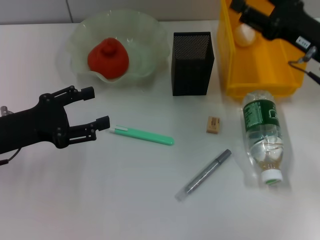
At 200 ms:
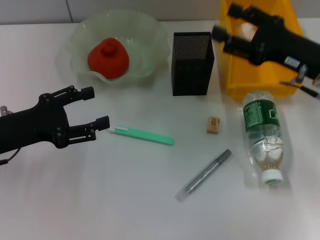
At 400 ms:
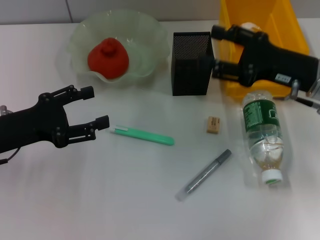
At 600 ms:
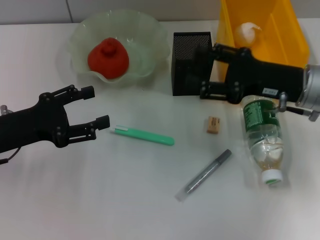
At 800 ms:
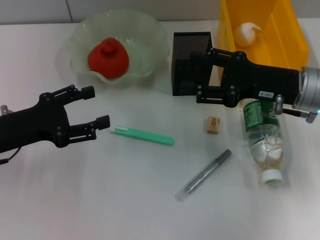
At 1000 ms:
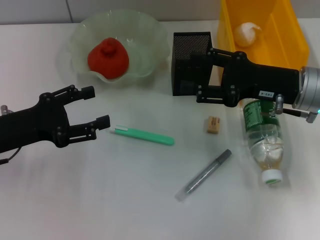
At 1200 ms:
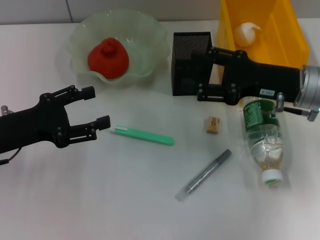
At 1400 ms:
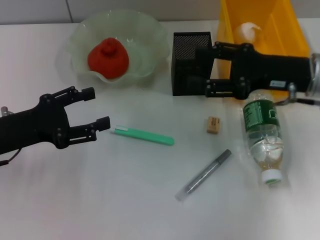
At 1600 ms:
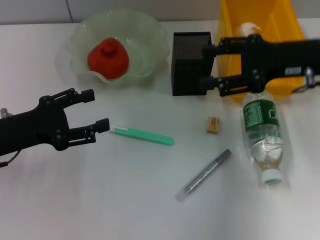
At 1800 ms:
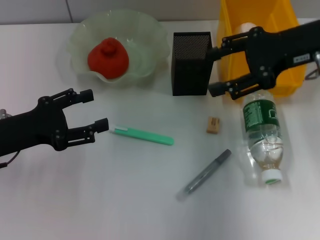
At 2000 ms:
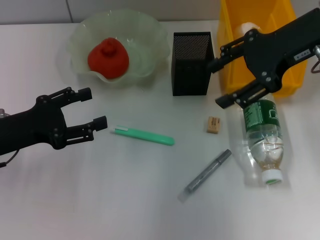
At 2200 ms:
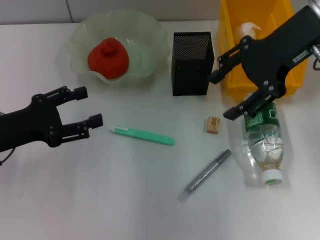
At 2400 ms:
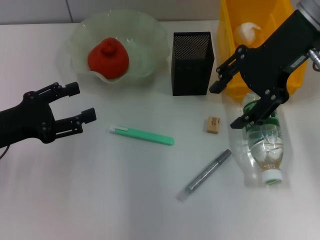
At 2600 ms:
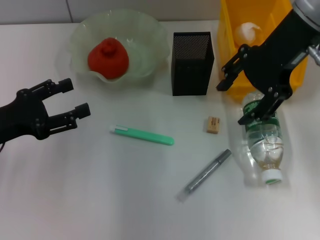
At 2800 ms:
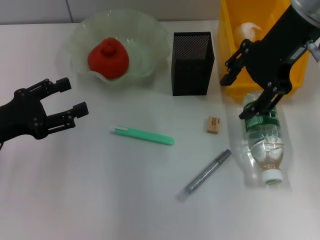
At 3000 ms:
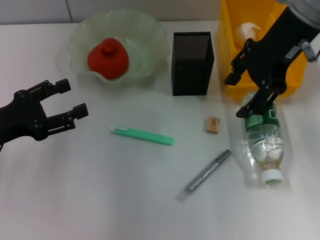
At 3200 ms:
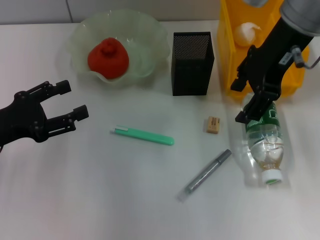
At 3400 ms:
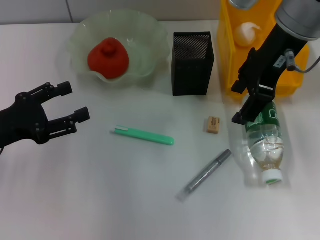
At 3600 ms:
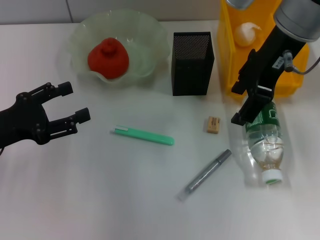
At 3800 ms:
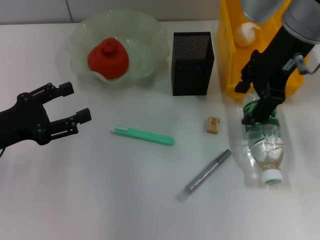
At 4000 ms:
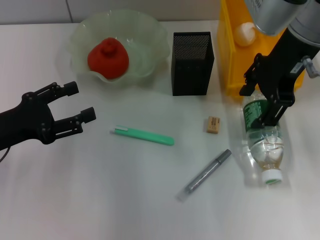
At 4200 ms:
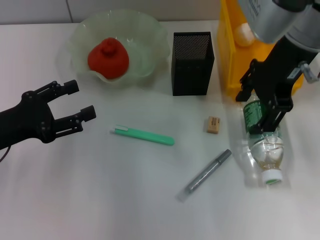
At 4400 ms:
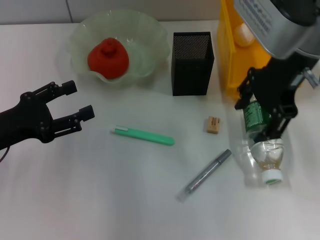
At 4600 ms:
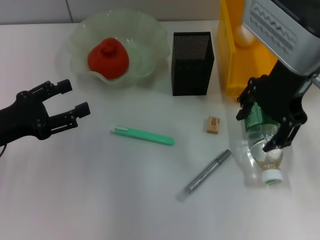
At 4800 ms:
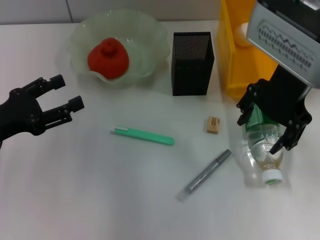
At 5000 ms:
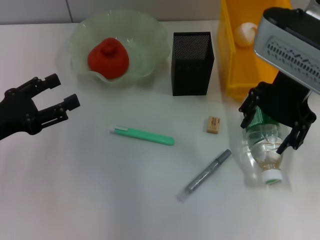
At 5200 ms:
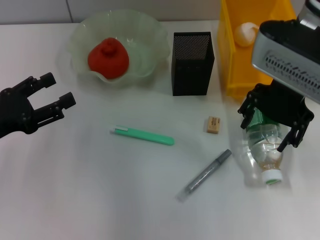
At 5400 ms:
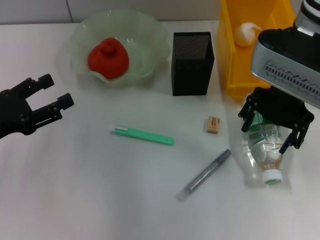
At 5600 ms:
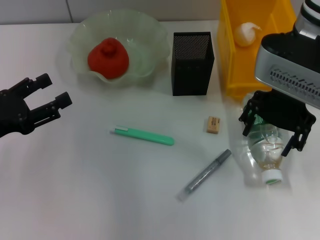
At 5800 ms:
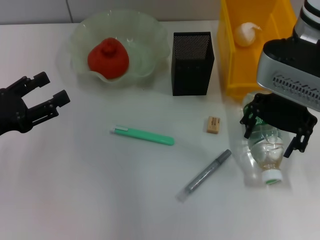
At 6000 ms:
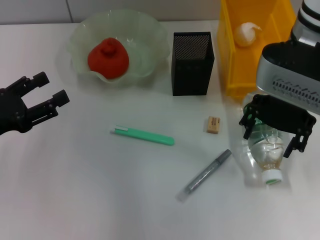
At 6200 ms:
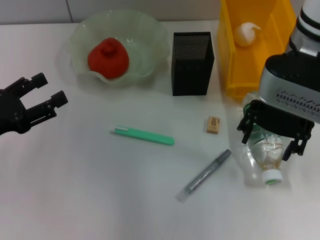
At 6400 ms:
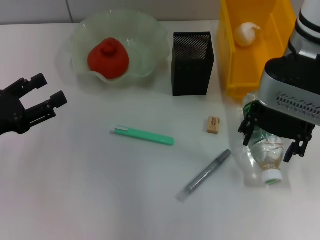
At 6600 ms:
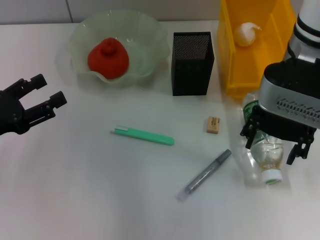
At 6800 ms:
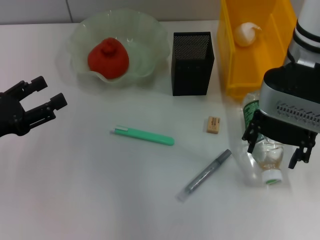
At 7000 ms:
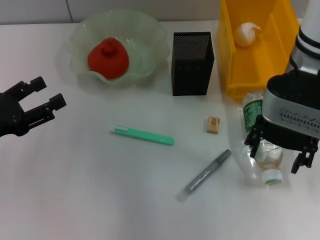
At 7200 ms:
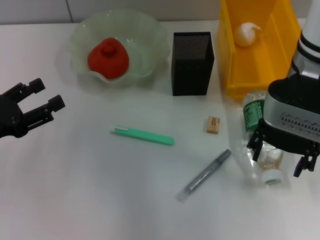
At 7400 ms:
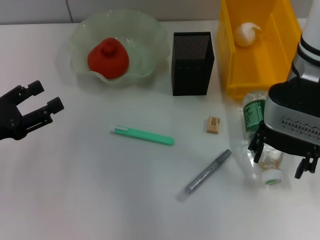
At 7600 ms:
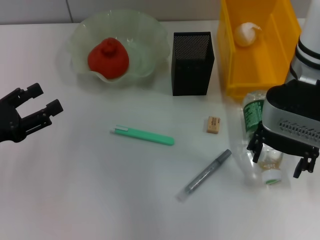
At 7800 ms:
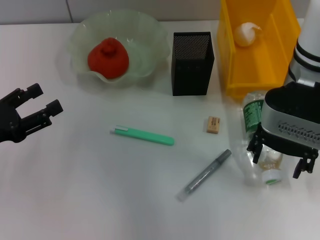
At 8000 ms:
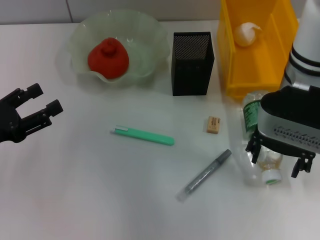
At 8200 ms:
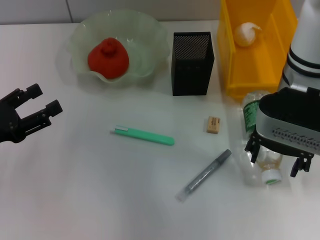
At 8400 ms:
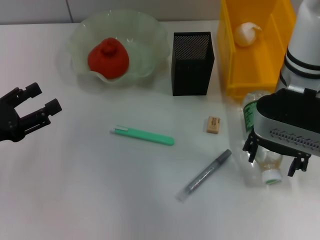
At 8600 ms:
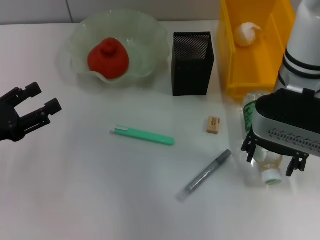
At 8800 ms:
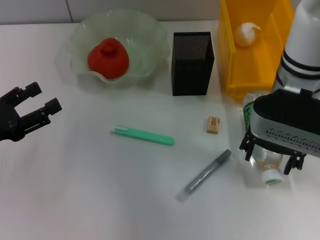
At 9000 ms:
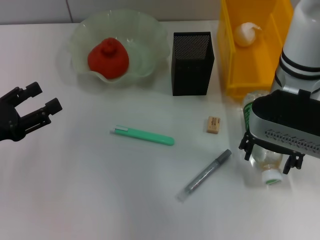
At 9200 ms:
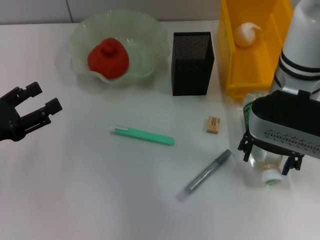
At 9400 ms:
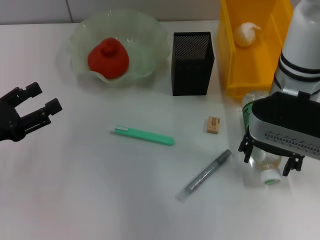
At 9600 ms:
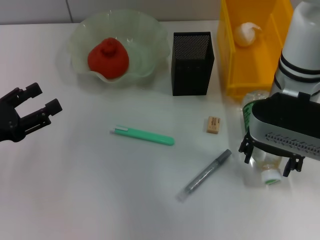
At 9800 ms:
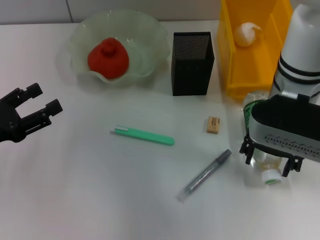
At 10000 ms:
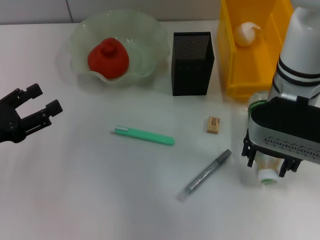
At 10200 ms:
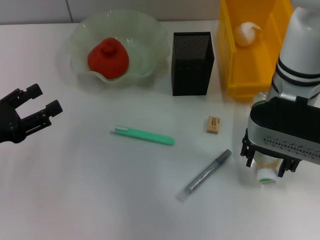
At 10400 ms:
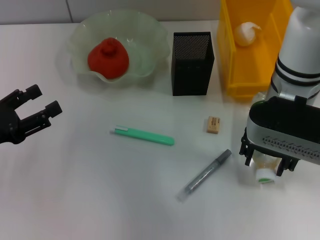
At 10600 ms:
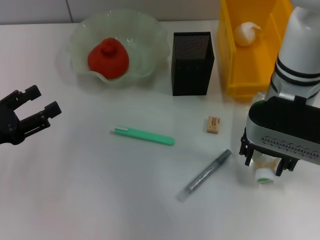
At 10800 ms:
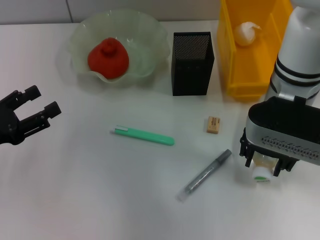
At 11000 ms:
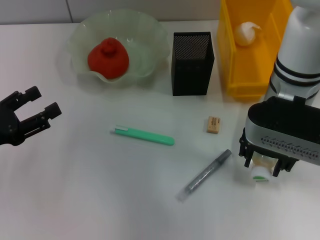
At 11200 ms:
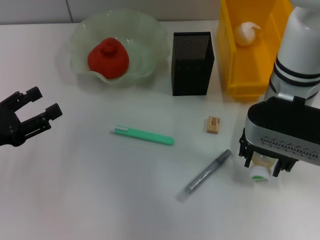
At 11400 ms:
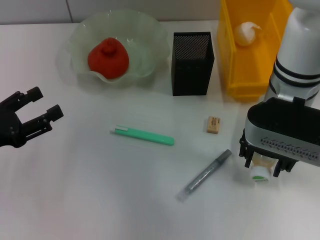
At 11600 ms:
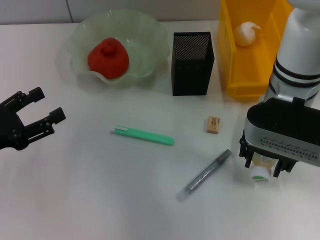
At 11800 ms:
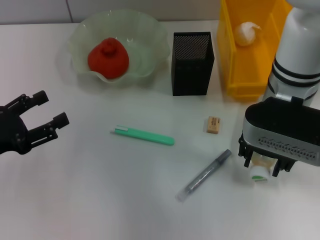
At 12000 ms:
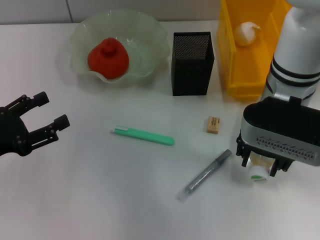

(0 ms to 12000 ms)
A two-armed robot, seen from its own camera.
0 ms - 1600 ms: The right gripper heads upward, covering some 5 cm.
1600 ms - 3000 ms: The right gripper travels upward and to the left by approximately 10 cm.
3000 ms - 4400 ms: The grippers move only a little.
6000 ms - 9000 ms: The grippers move only a little.
9000 ms - 10400 ms: Both grippers stay put.
10400 ms - 12000 ms: The grippers move only a little.

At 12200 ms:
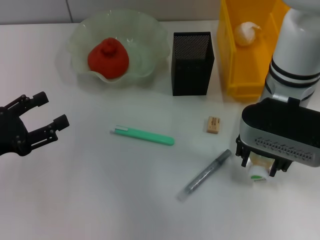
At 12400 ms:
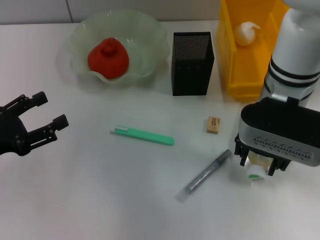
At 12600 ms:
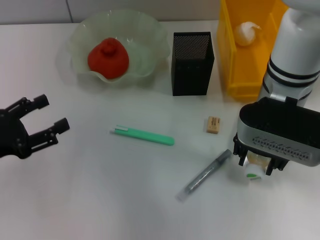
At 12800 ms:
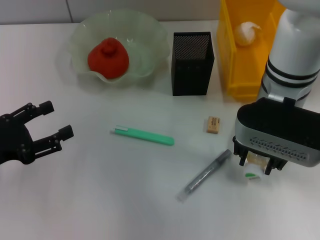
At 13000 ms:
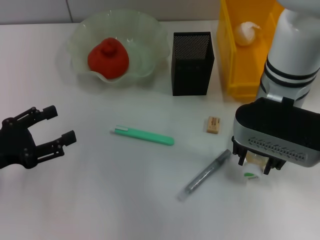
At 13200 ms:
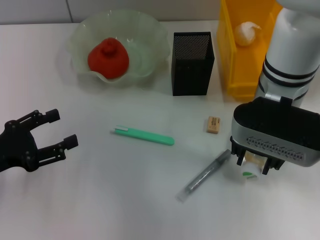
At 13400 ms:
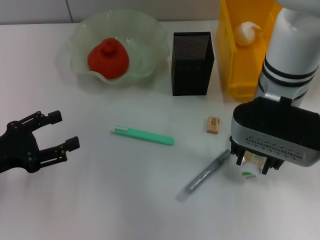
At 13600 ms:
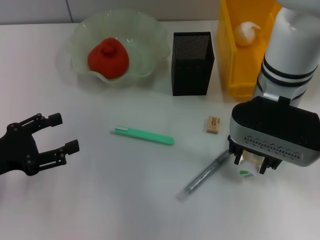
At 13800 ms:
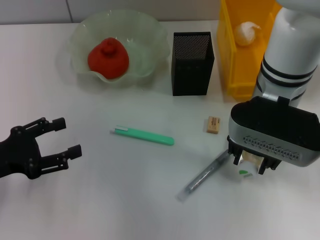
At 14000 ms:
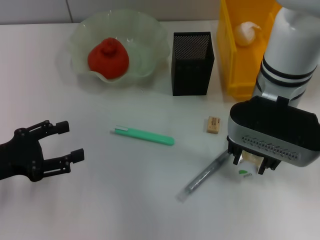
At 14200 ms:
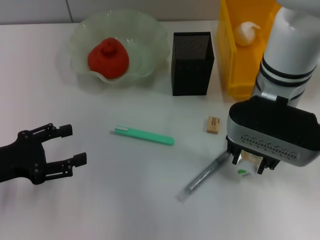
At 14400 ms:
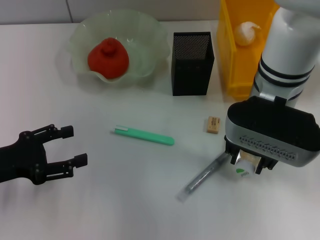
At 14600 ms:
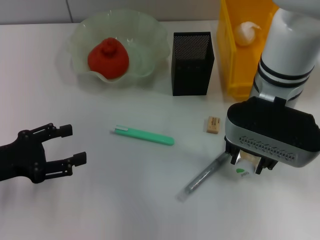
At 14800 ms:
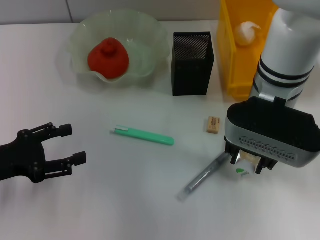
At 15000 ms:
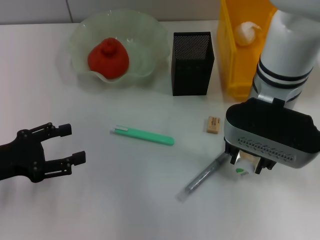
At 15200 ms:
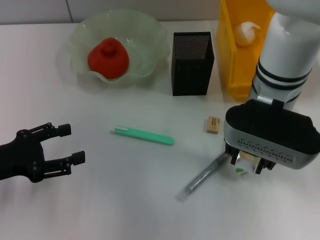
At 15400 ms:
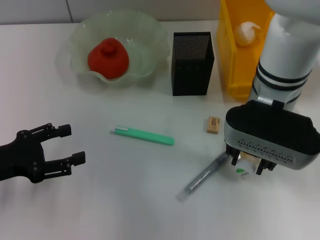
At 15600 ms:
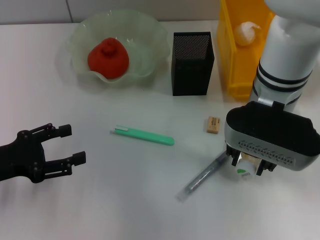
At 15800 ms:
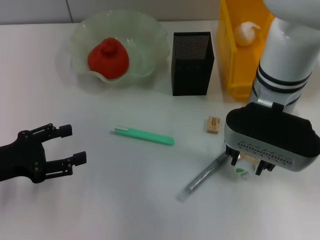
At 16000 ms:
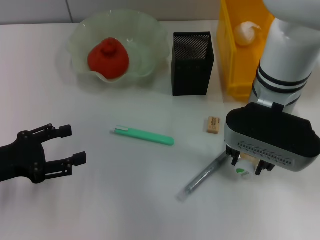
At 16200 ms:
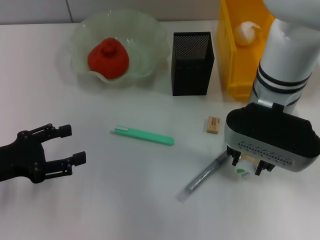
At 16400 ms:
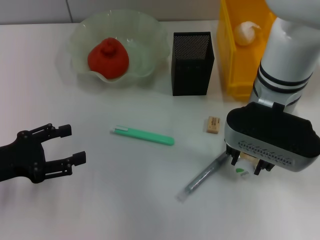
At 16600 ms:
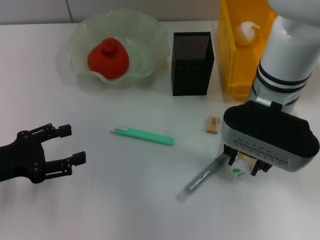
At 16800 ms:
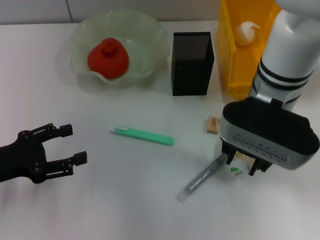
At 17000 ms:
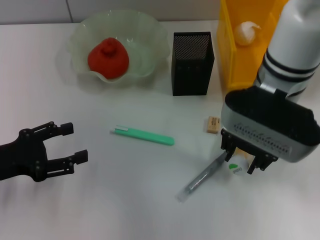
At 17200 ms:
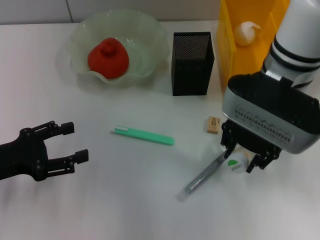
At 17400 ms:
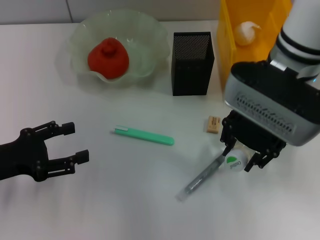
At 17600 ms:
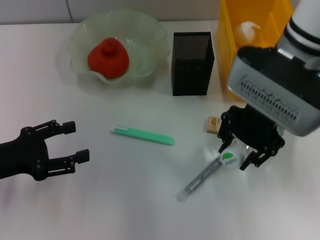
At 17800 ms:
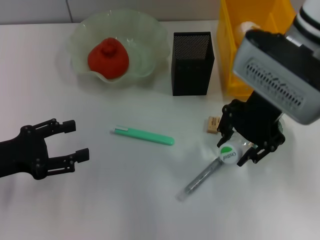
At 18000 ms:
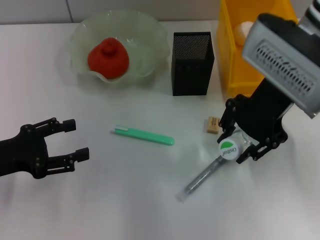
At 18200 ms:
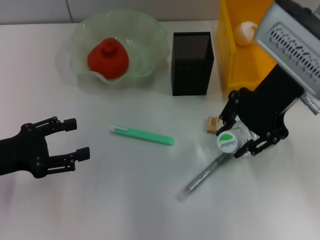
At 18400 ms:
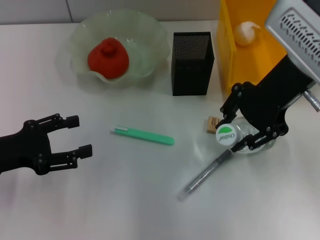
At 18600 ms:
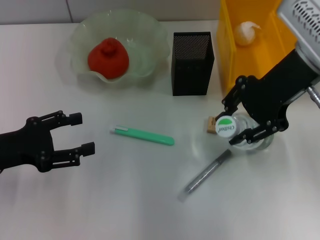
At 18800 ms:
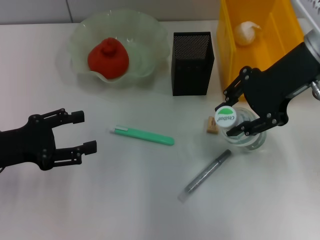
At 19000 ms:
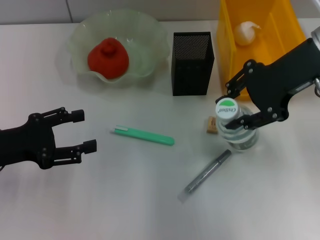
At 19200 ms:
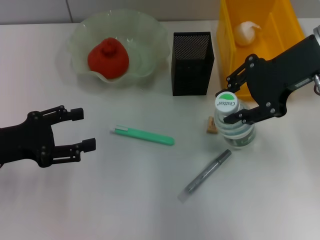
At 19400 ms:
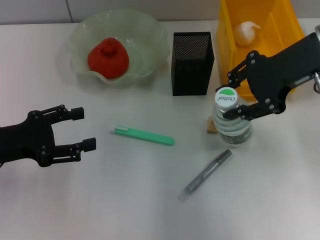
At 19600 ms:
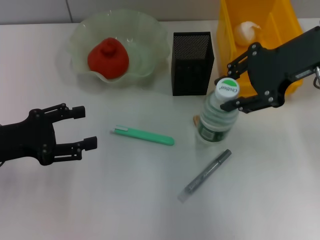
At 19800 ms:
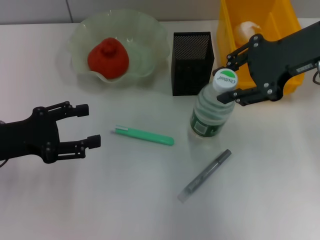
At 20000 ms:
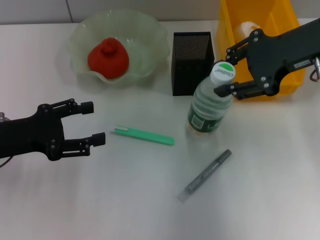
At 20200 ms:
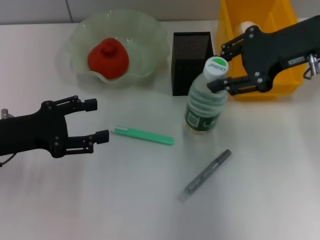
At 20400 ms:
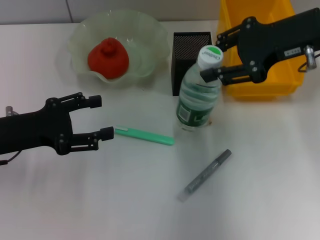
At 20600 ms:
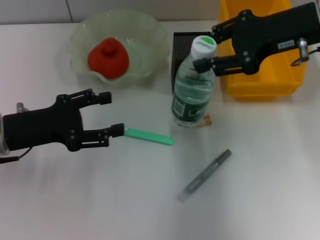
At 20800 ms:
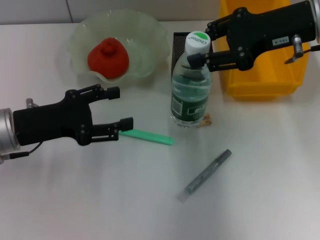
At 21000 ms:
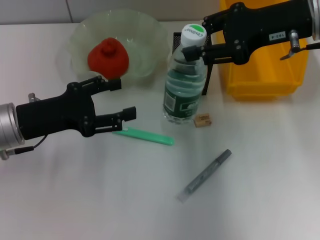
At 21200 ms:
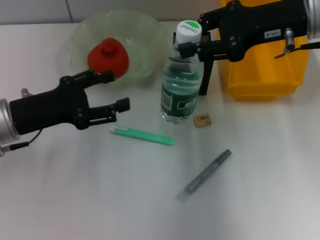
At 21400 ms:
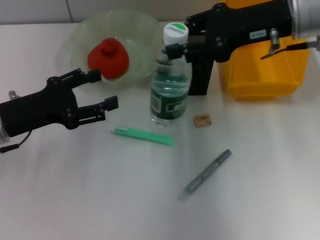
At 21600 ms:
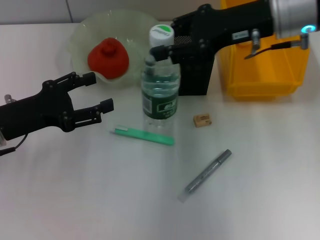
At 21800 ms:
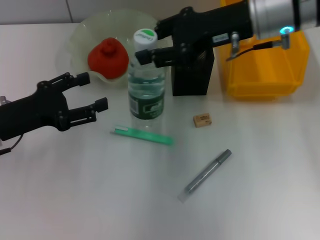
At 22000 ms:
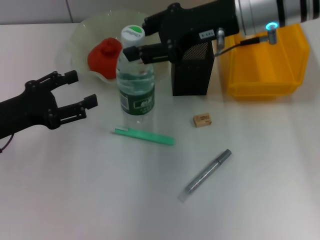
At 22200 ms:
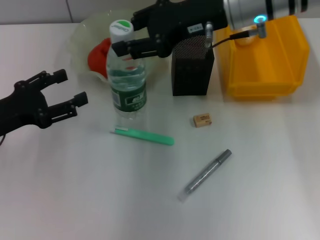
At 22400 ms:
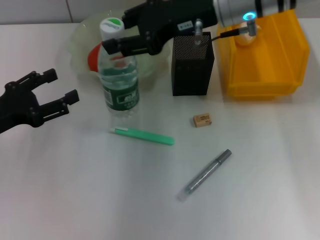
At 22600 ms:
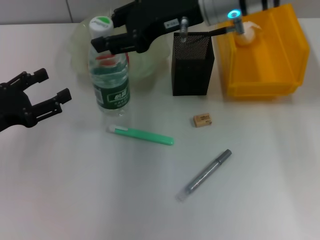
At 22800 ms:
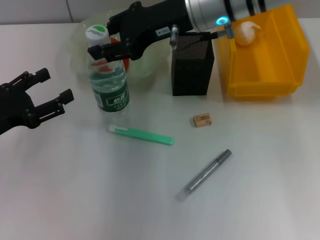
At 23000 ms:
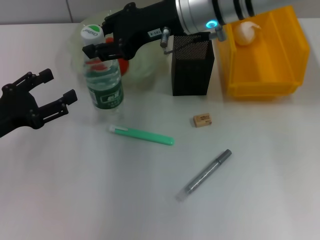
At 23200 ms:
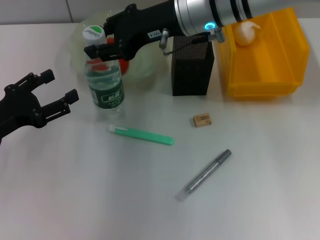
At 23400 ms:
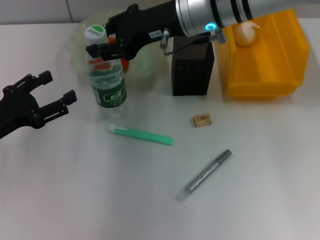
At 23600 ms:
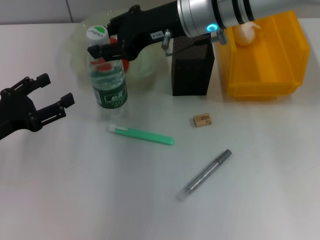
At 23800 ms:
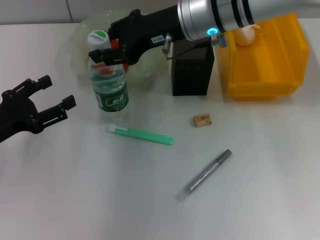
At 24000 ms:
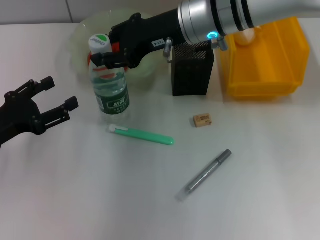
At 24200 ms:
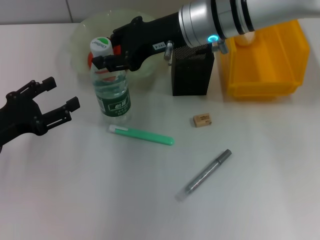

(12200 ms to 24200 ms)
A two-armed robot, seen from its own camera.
Step, 12200 ms - 16800 ms: Grab the water bottle with the right hand.
12200 ms - 13800 ms: There are only small adjustments of the grippers.
13800 ms - 16600 ms: Both grippers stay put.
16600 ms - 18200 ms: The right gripper goes approximately 5 cm upward.
18200 ms - 19800 ms: The right gripper heads to the right, covering roughly 5 cm.
19800 ms - 21200 ms: The left gripper moves roughly 5 cm.
21200 ms - 22600 ms: The right gripper heads to the left, covering approximately 10 cm, while the left gripper moves to the left, roughly 5 cm.
22600 ms - 24200 ms: The grippers stay close to where they were, moving slightly.
